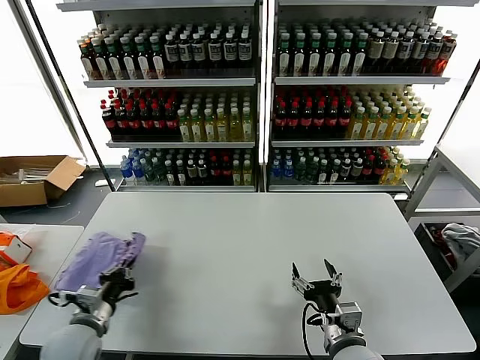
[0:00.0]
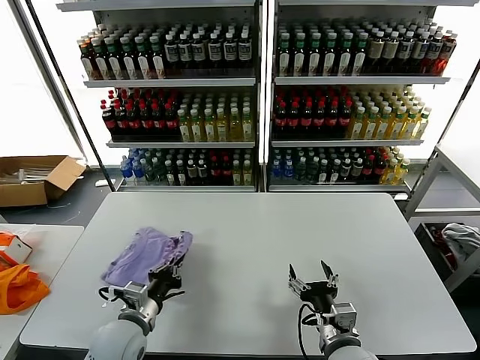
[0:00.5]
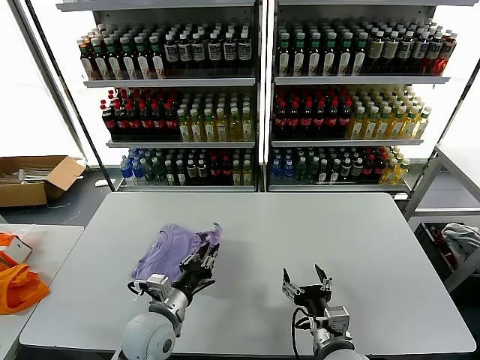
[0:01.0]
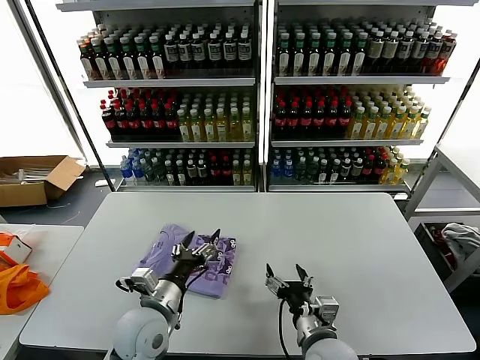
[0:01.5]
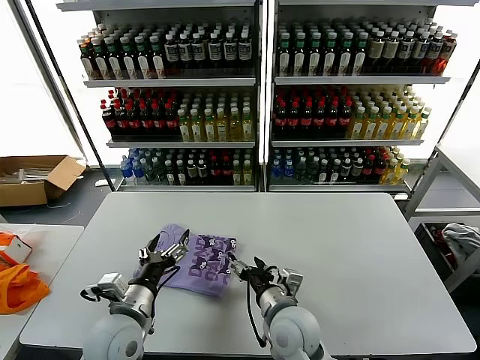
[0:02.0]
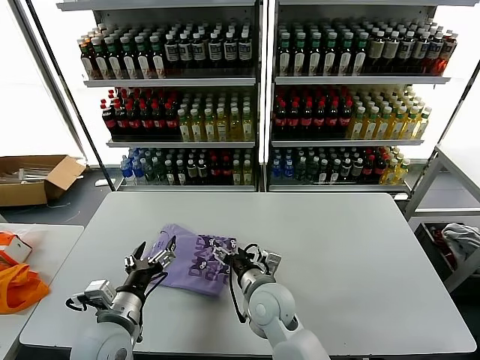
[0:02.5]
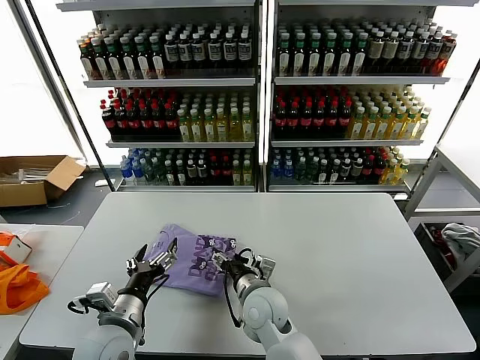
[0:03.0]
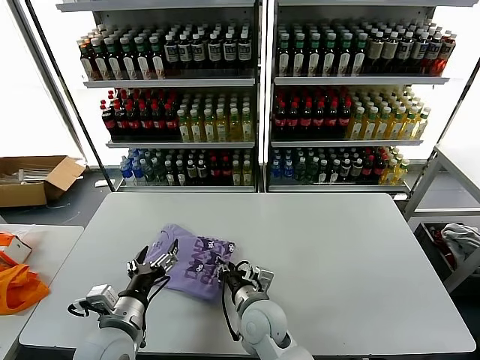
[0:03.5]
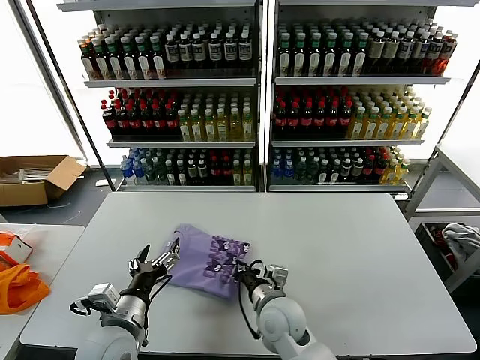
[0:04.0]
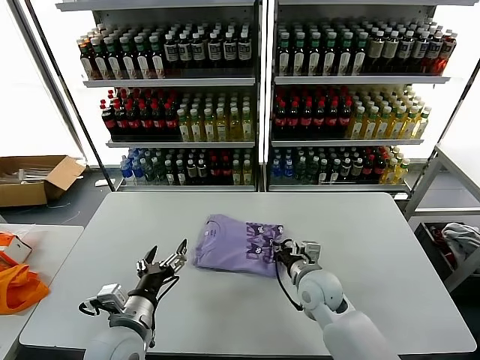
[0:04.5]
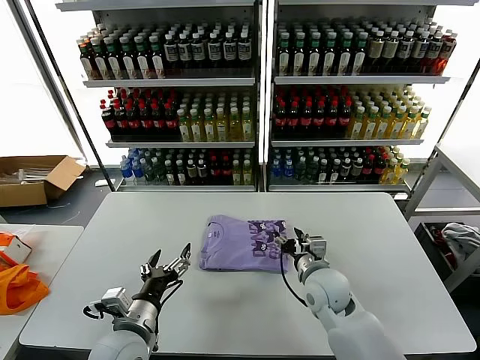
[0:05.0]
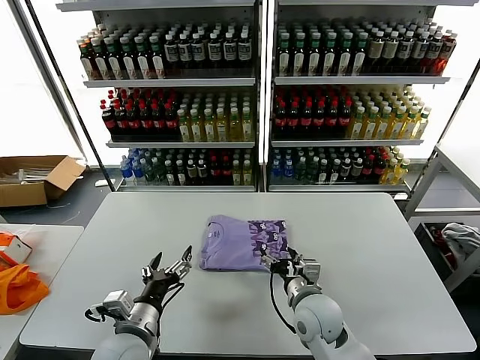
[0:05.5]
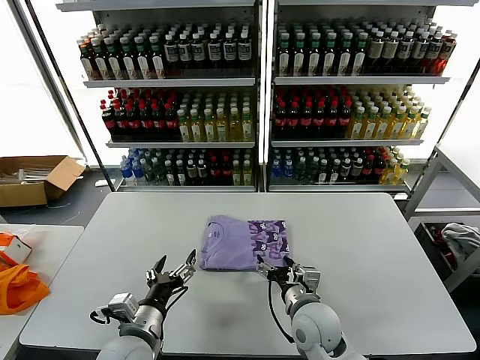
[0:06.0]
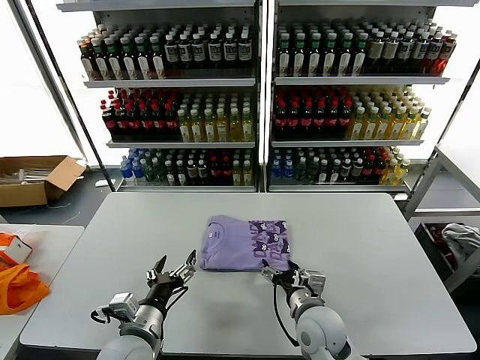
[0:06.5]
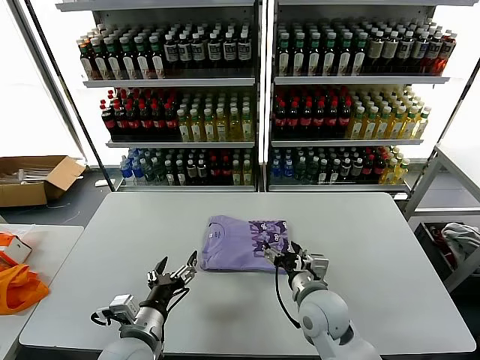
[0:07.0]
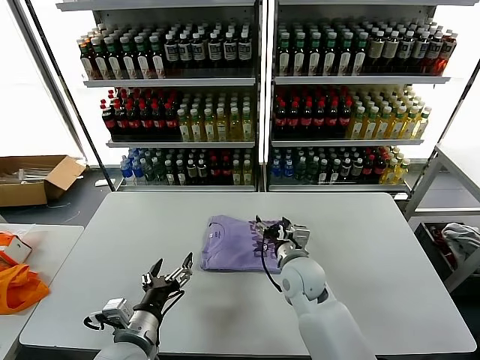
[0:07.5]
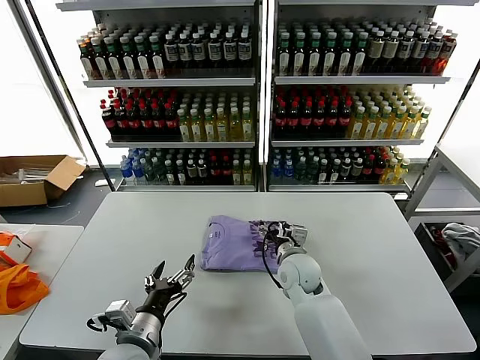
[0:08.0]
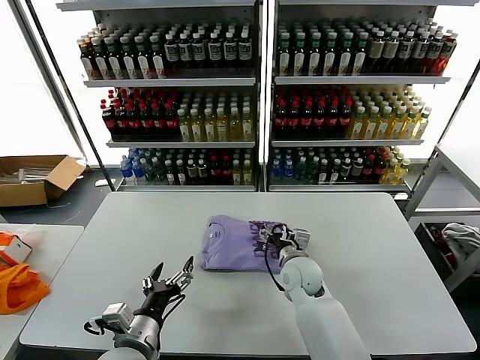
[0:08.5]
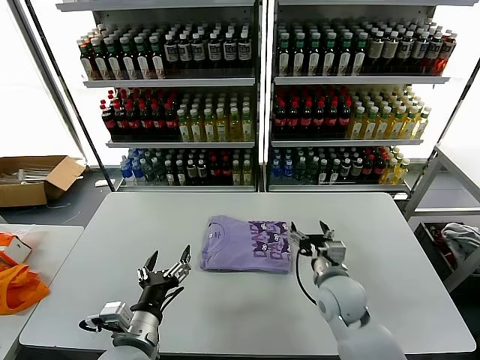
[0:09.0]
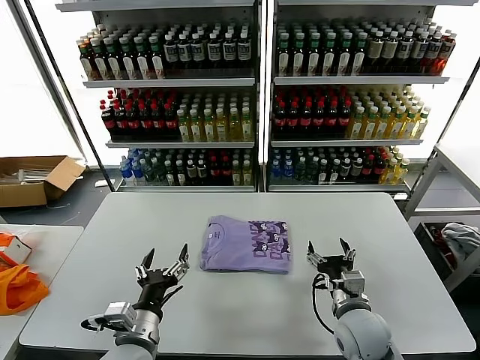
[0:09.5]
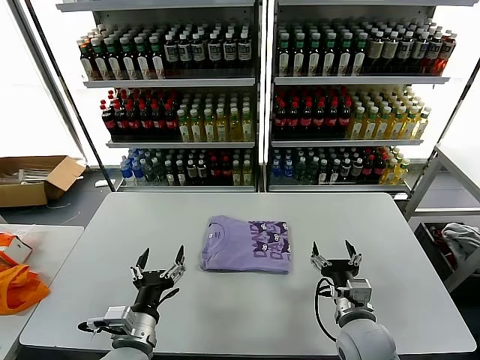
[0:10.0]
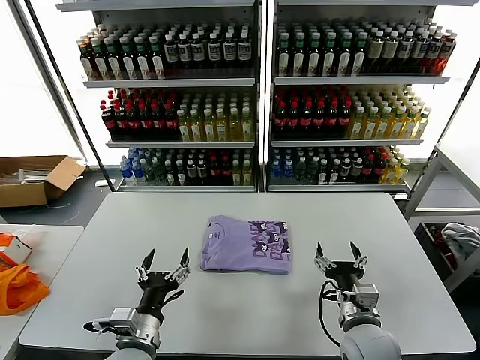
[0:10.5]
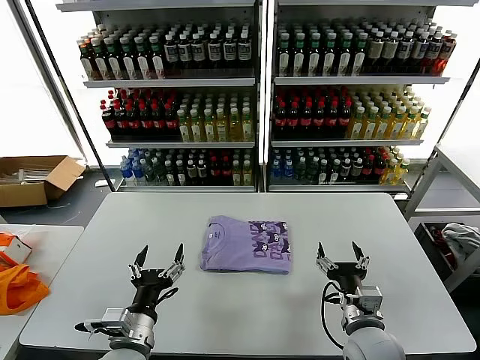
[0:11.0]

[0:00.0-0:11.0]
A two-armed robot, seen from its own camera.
Task of the whole recording: fold and organize the clothes.
Step, 0:01.5 to 0:08.5: Drag the clothes to the center of the table.
0:00.0 to 0:02.0: The left gripper is displaced to the right by roughly 15 cm, and opens up. The right gripper is displaced to the left and forward by approximately 10 cm.
0:02.0 to 0:03.5: The right gripper is displaced to the left by about 5 cm, and closes up.
0:03.5 to 0:05.5: The right gripper heads to the right, covering approximately 10 cm, and opens.
0:05.5 to 0:07.5: The right gripper moves forward, approximately 5 cm.
0:07.5 to 0:09.0: The right gripper goes some 5 cm to the right.
0:09.0 to 0:11.0: The right gripper moves backward, roughly 10 cm.
